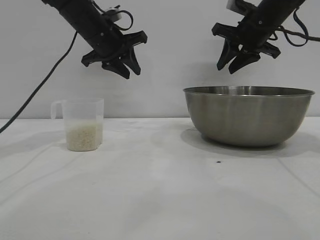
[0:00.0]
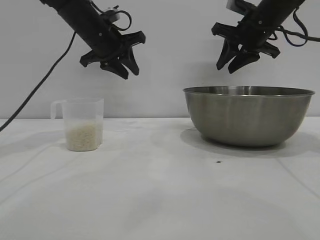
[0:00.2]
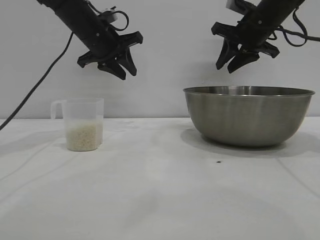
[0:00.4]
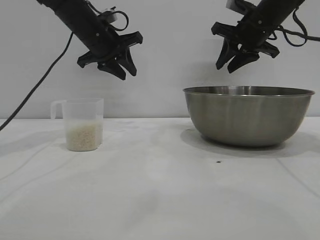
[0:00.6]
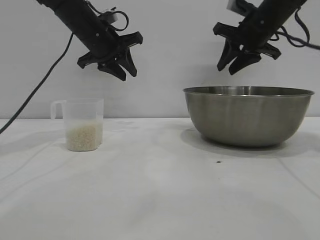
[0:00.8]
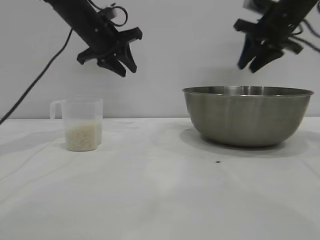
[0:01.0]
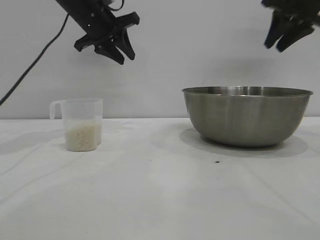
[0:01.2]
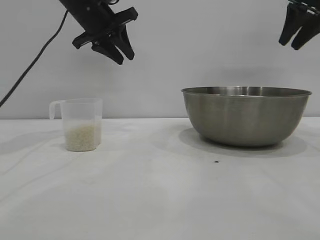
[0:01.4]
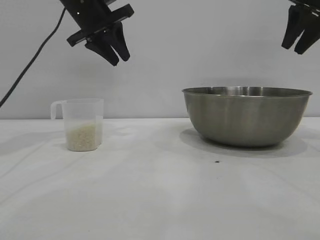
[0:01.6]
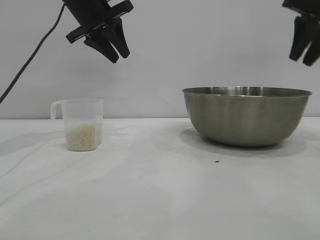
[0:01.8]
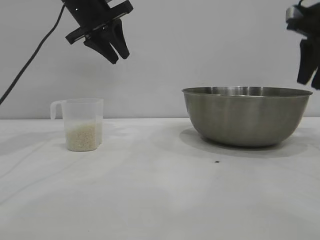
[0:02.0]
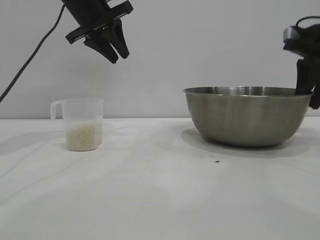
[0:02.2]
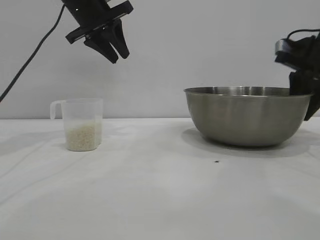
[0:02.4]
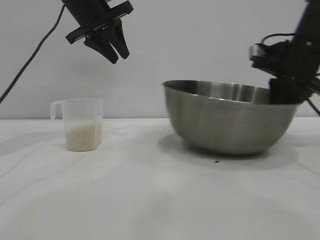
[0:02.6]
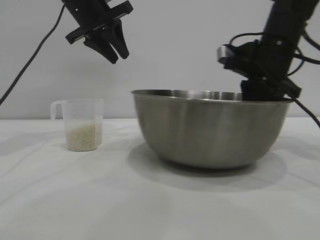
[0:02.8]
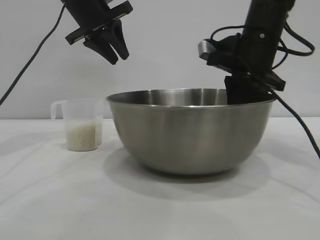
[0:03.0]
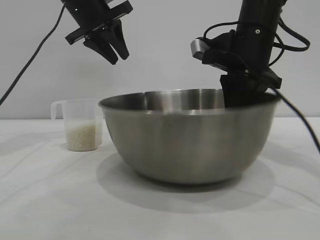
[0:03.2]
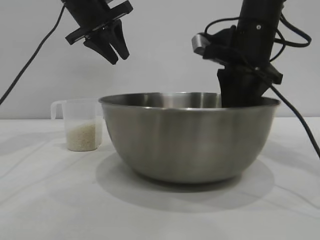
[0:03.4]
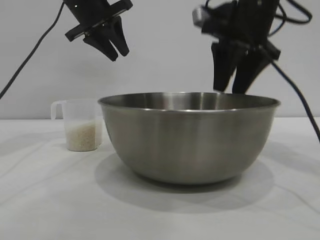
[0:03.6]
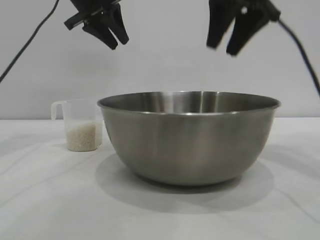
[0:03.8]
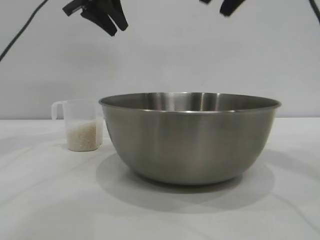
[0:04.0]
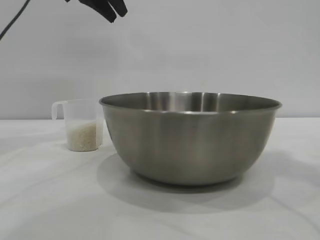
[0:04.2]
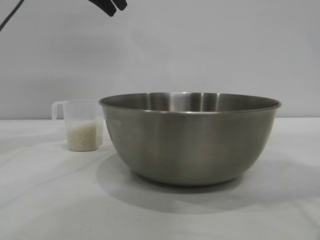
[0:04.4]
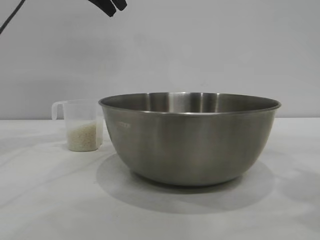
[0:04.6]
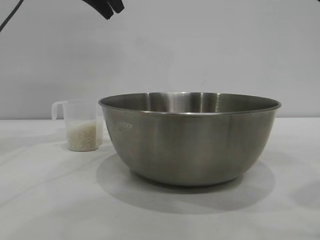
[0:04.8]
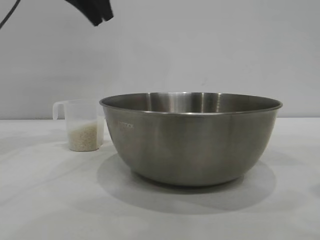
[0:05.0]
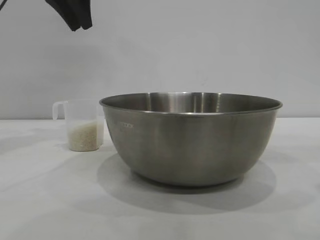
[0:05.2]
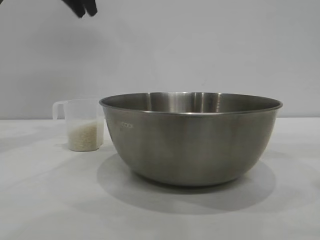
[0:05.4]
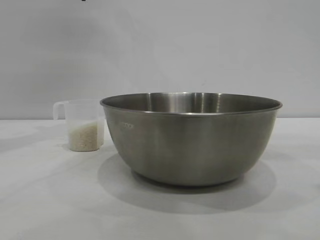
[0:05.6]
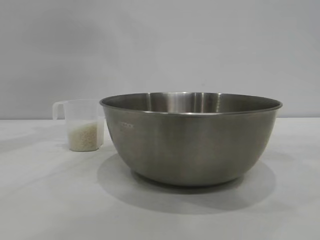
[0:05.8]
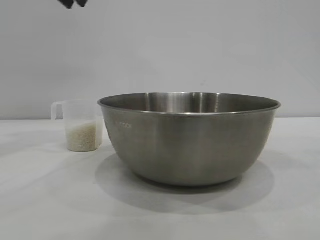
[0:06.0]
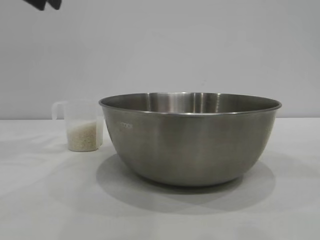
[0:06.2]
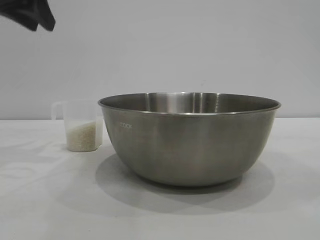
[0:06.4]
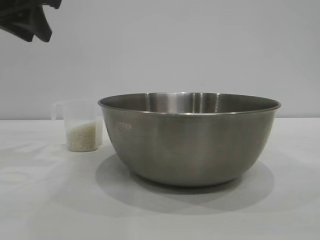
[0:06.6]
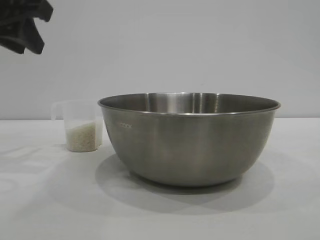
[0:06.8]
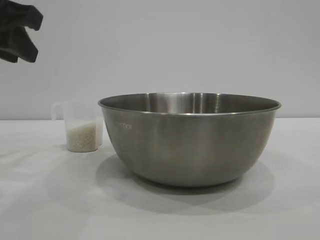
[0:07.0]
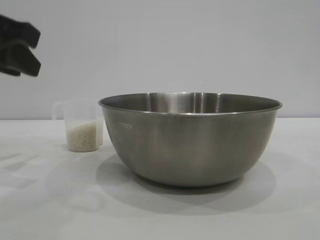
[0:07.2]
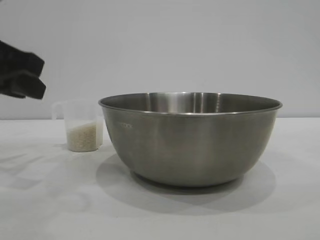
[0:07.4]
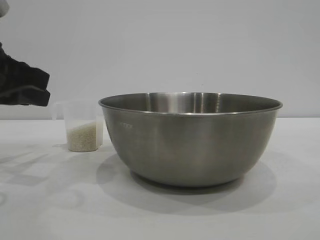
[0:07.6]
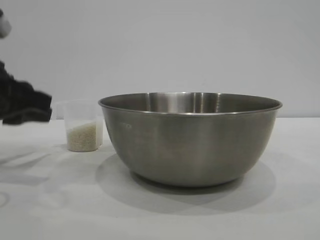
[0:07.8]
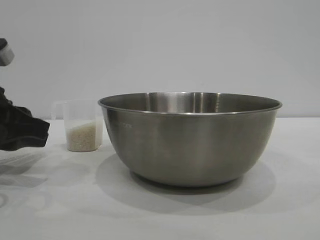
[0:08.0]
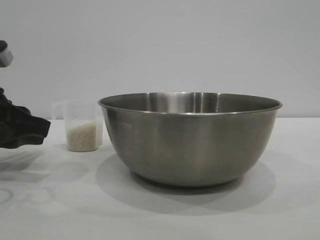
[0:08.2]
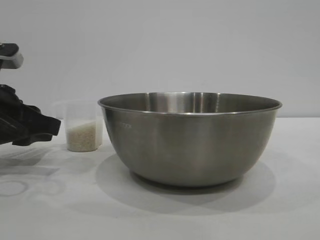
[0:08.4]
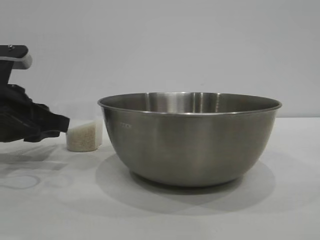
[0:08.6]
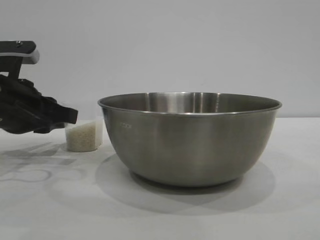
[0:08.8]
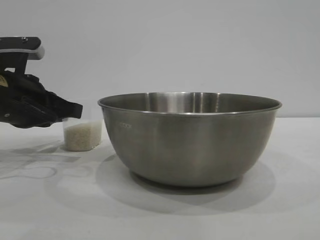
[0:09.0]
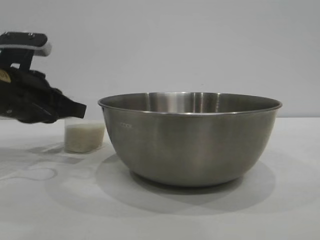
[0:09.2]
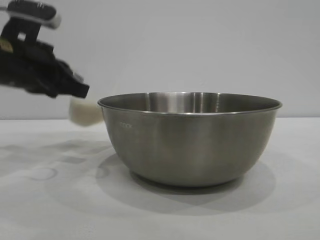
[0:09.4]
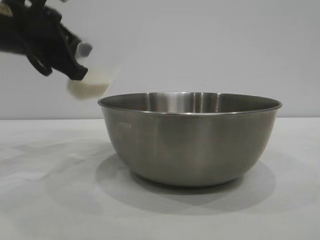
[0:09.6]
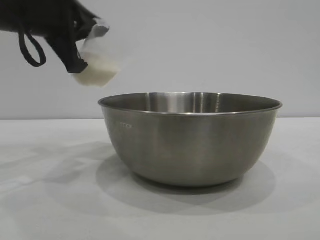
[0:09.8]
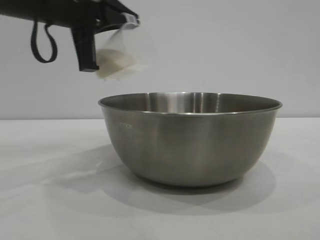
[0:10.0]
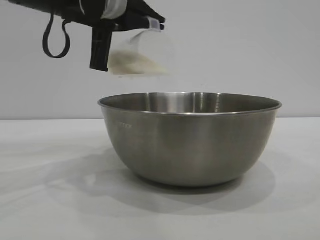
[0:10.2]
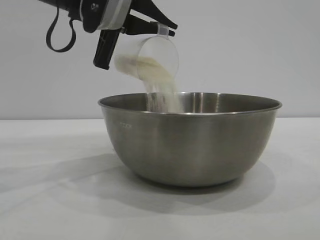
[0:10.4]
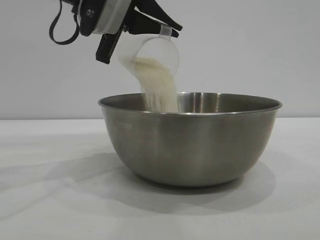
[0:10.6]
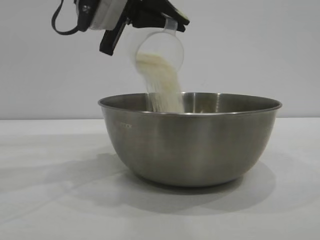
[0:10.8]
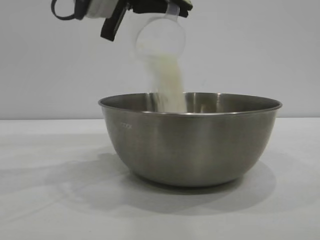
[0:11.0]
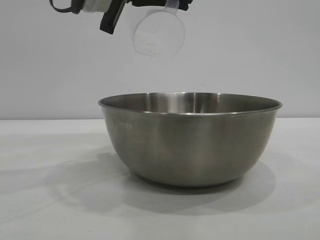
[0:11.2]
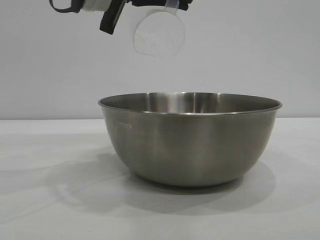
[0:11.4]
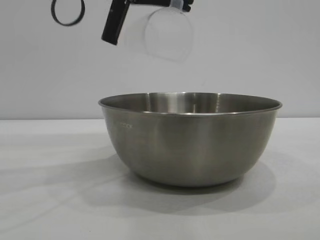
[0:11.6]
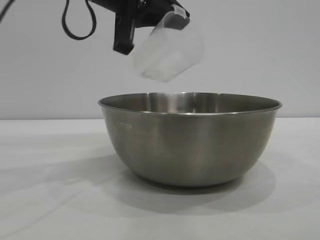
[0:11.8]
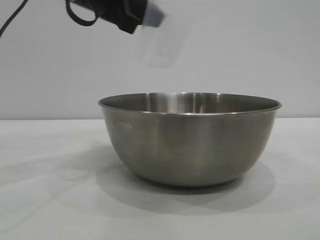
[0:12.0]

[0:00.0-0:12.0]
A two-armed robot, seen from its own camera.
Task of the whole recording: the right gripper grasp the rice container and place it in the center of the table, the left gripper grasp the rice scoop and pour the rice into the rice container.
Step, 0:00.0 to 0:03.4: Move the bowl to the center of view with the right gripper.
Step, 0:03.6 to 0:09.2: Pick up the cup with rice in it with the left gripper.
Step, 0:09.6 to 0:11.2: Pour the rice from the cup into the bowl with the left gripper.

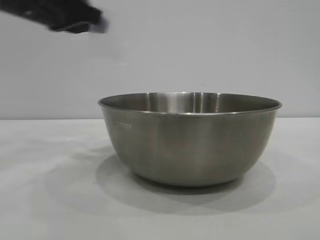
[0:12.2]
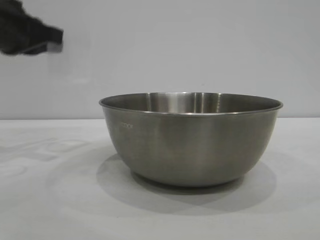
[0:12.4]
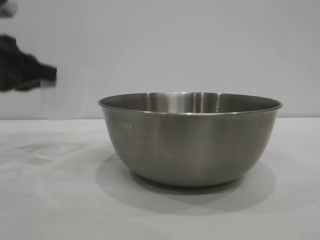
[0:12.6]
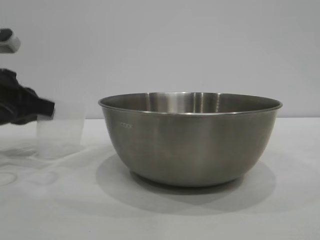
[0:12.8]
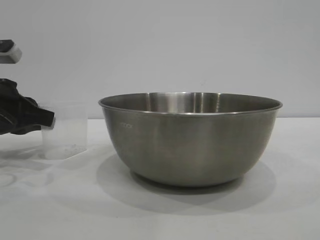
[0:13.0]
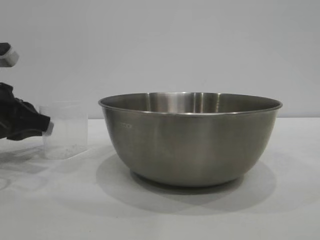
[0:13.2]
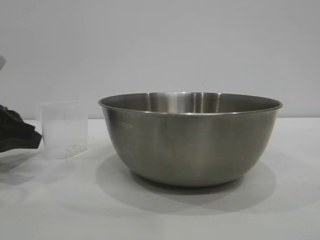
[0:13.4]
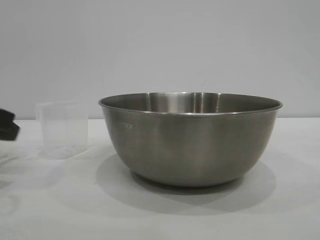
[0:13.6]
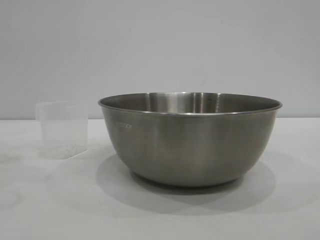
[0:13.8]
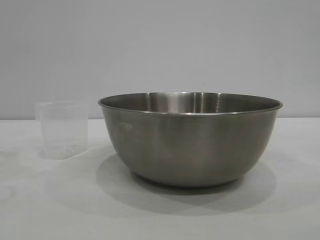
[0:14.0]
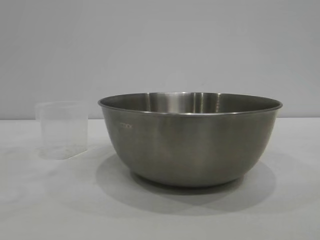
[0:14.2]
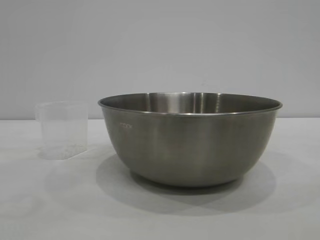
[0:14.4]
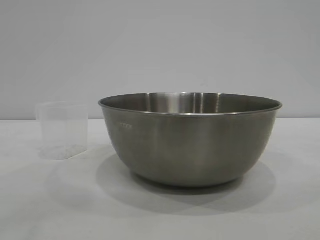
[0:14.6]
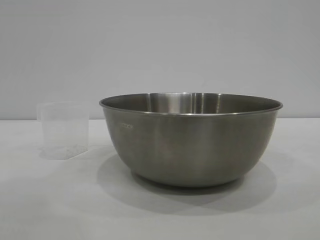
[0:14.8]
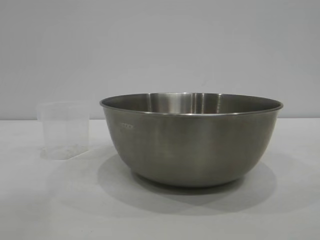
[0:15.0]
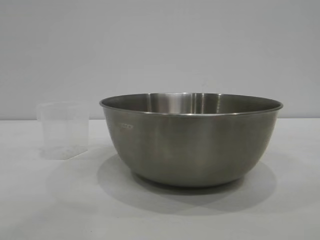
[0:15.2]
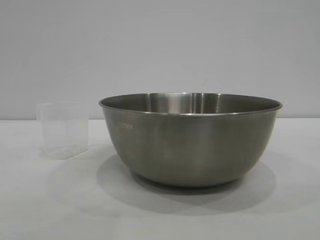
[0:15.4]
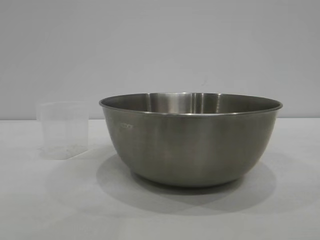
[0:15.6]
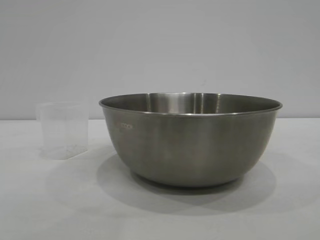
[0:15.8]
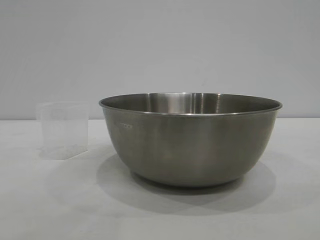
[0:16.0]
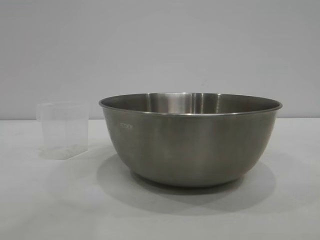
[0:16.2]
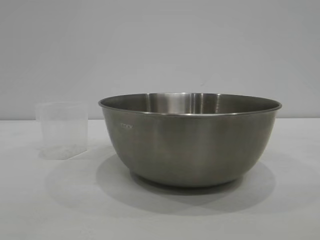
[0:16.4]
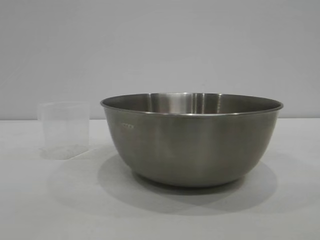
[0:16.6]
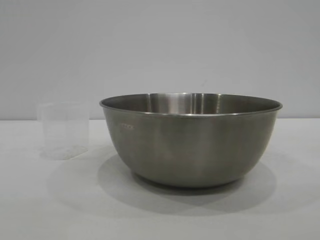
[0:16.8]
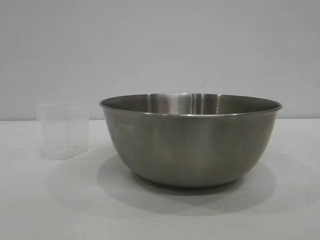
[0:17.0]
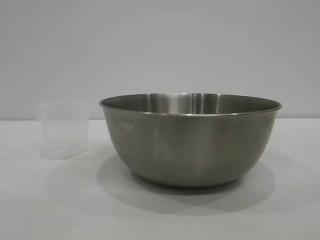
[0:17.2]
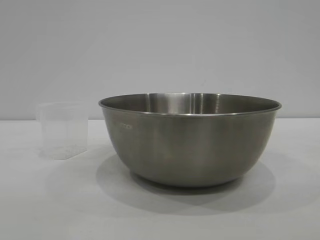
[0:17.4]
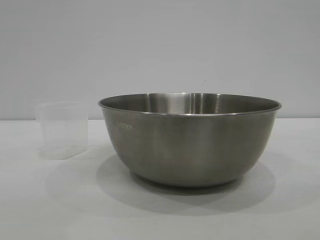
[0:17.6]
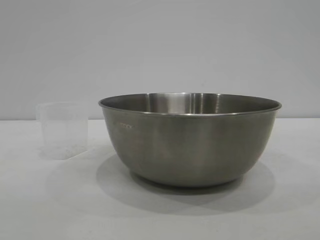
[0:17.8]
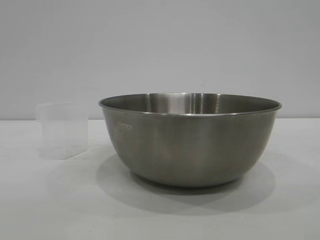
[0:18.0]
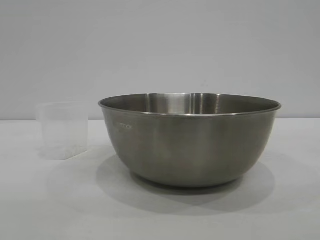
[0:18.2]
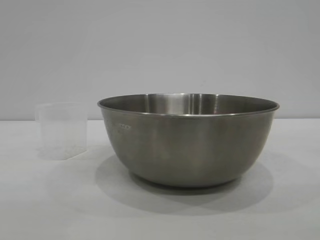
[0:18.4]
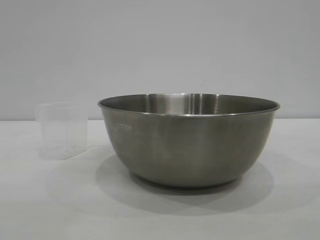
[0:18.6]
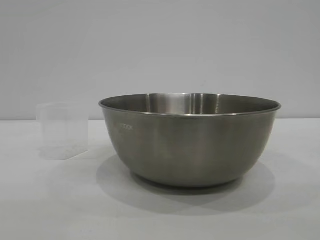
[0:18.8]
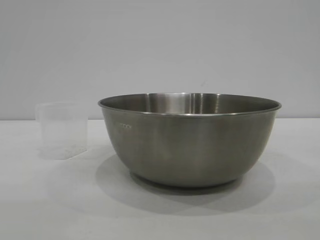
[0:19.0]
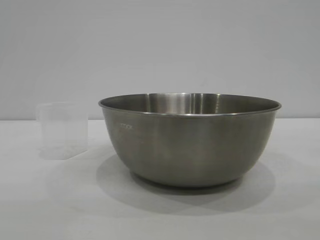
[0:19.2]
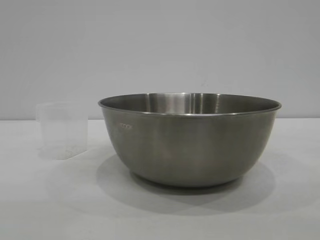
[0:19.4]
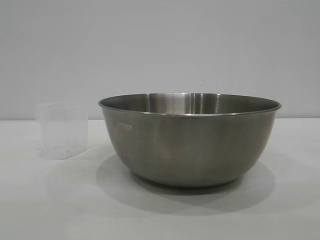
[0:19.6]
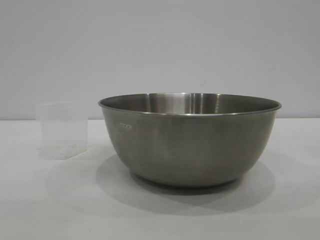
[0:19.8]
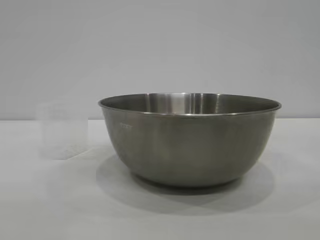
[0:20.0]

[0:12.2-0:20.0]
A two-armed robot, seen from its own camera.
Task of the whole recording: the right gripper grasp the rice container and place it in the center of the table, the left gripper grasp the rice scoop and pour the rice into the rice container.
Step, 0:12.2 to 0:13.4: Place the cup on the table with the left gripper.
